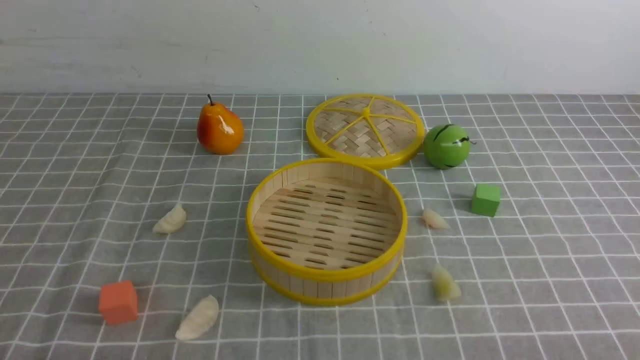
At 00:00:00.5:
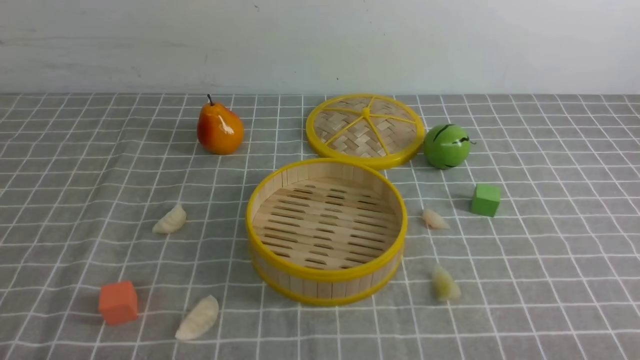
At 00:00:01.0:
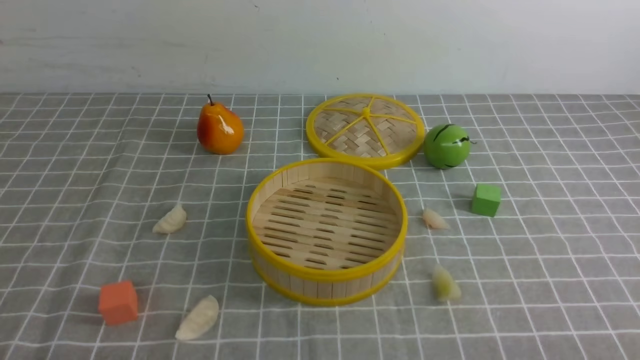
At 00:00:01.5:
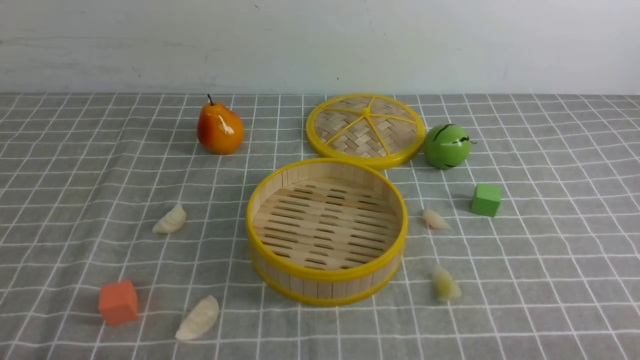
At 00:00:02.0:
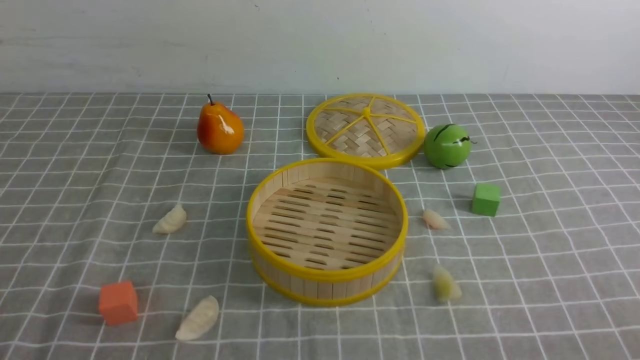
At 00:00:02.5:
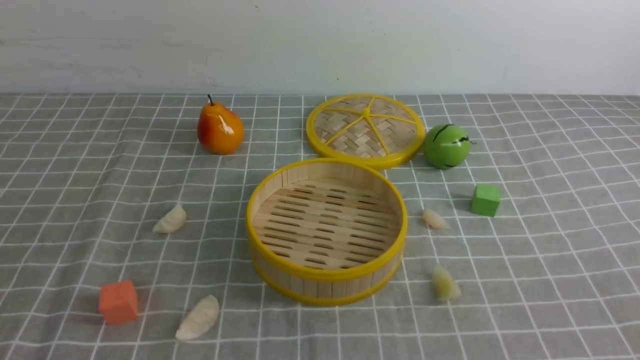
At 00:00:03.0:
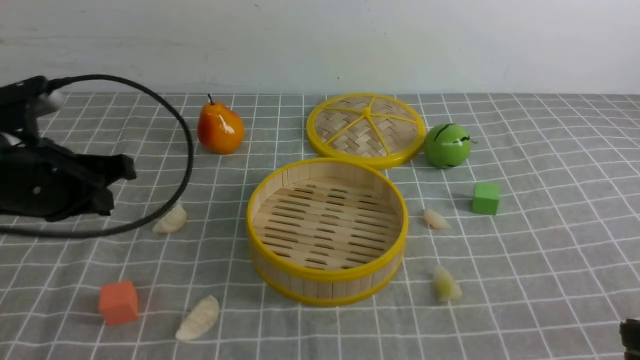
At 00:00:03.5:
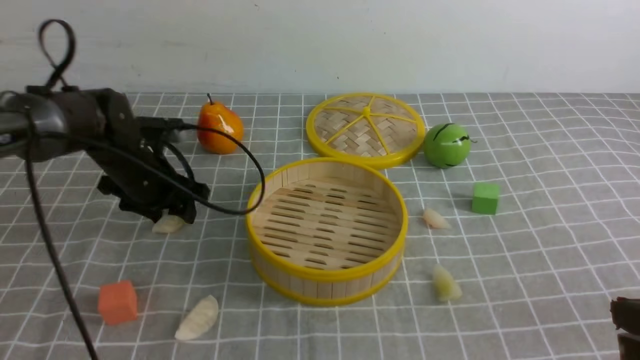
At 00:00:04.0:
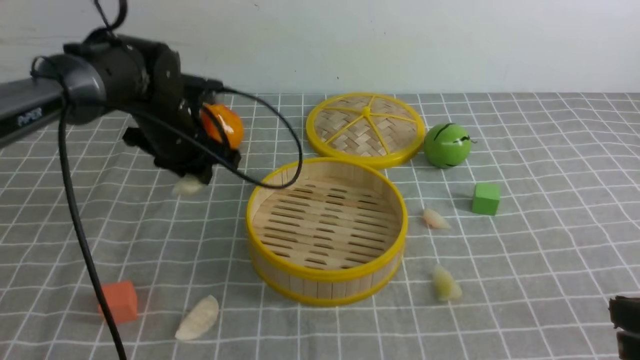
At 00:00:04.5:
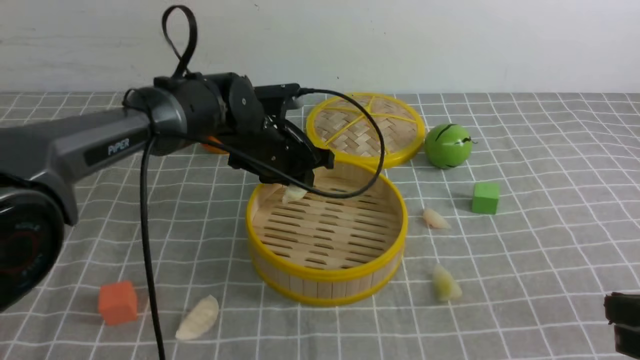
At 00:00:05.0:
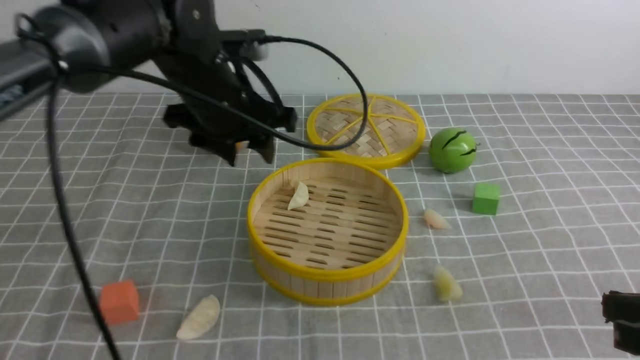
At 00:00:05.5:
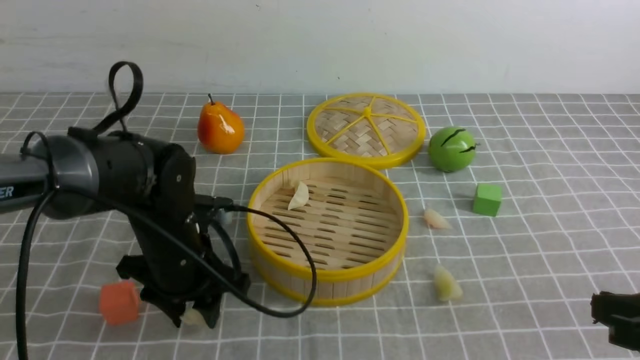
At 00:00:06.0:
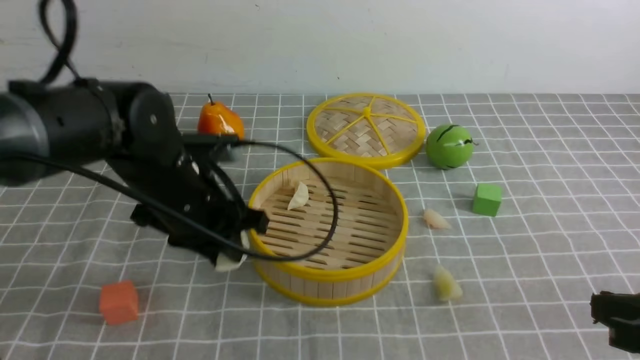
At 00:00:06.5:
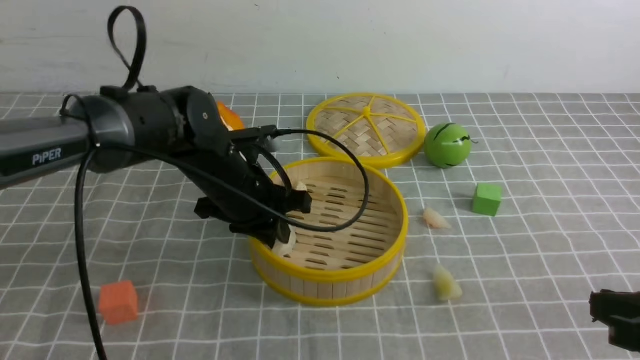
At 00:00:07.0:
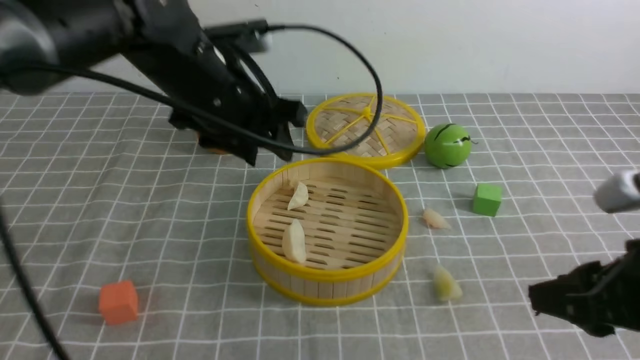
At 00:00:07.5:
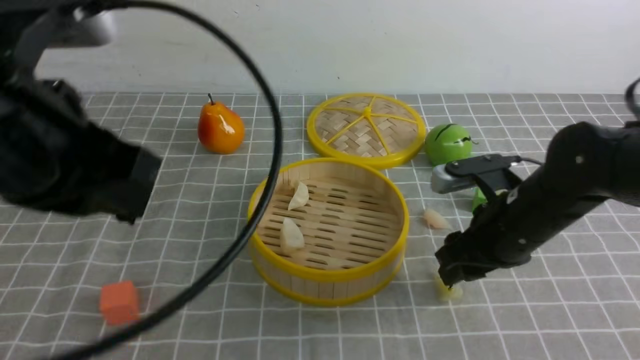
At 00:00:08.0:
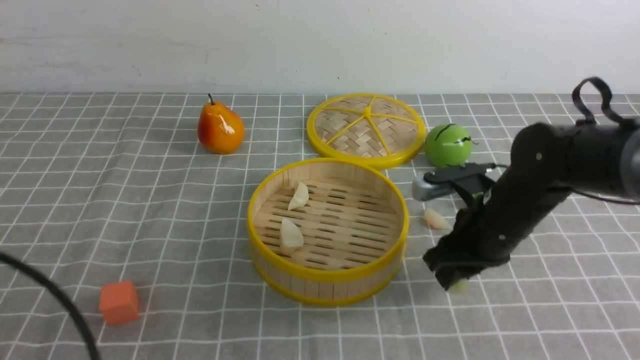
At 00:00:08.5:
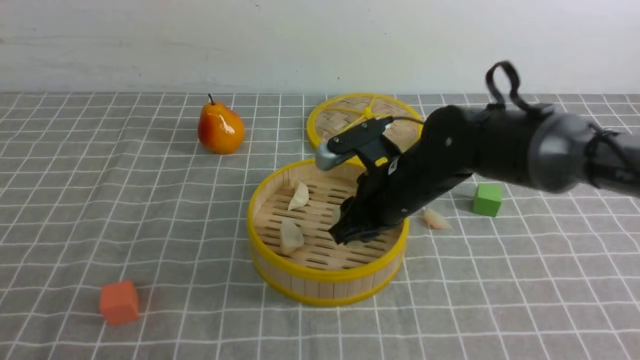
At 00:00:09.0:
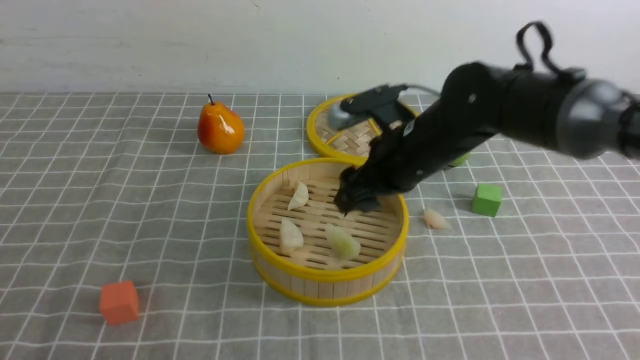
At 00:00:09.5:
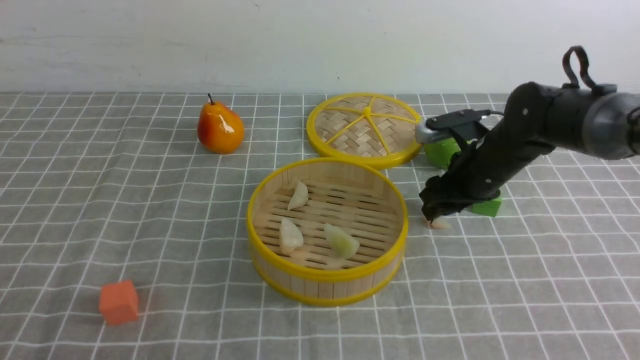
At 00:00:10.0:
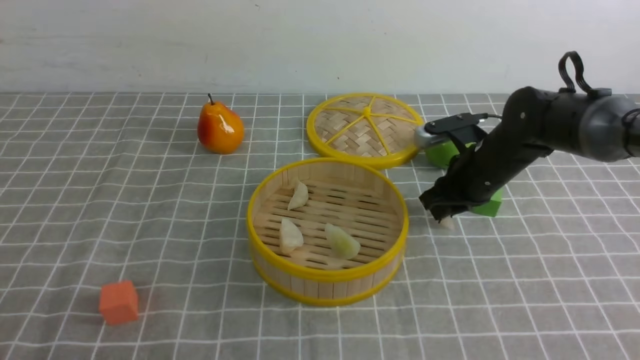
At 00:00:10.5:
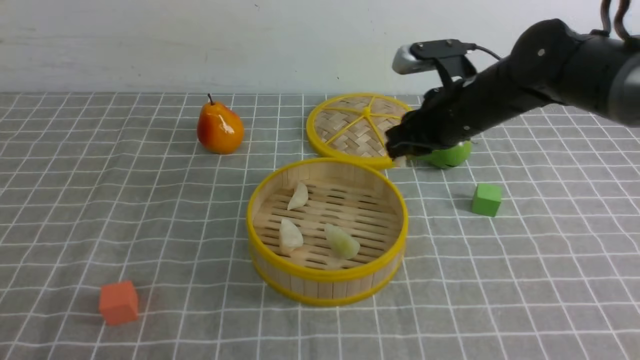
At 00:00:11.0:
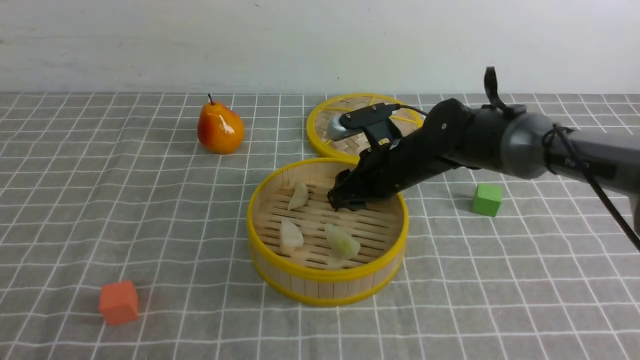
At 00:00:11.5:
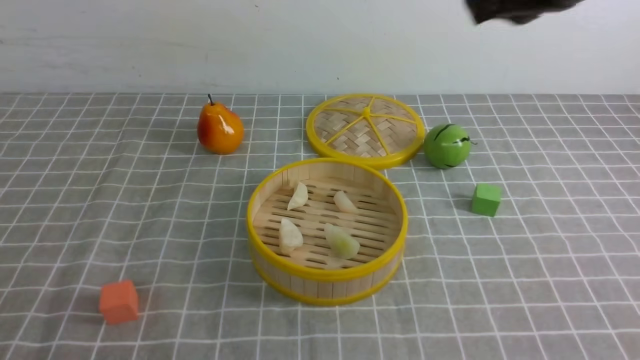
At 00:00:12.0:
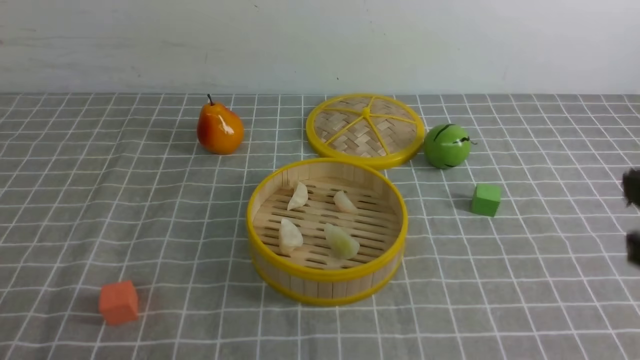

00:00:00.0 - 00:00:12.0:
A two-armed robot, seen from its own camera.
Task of the whole recording: put the dumplings into the steamer on the table with the grey tablecloth.
Step, 00:00:00.0 - 00:00:03.5: use the left arm to grab a dumpling.
Step, 00:00:04.0 - 00:00:04.5: use the left arm to put the dumpling into the steamer.
Step, 00:00:05.0 - 00:00:05.5: use the left arm to grab a dumpling.
Step, 00:00:06.0 - 00:00:06.5: use the left arm to put the dumpling into the steamer.
Step, 00:00:07.0 - 00:00:08.0: use the right arm to grab a dumpling.
Step, 00:00:09.5 - 00:00:10.0: use the right arm to grab a dumpling.
Step, 00:00:10.5 - 00:00:11.0: use the right arm to put the dumpling into the steamer.
00:00:00.0 - 00:00:02.0: The right gripper shifts some 5 cm upward.
00:00:02.0 - 00:00:04.0: The right gripper is displaced forward by about 10 cm; the left gripper shifts some 40 cm forward, and closes, then reopens.
00:00:04.0 - 00:00:06.0: The left gripper goes roughly 10 cm backward, and opens, then closes once more.
00:00:06.0 - 00:00:08.0: The right gripper moves forward and to the left, about 25 cm, and opens its fingers, while the left gripper travels backward and to the left by approximately 25 cm, and closes.
00:00:08.0 - 00:00:10.0: The left gripper shifts by approximately 5 cm, while the right gripper moves forward, some 10 cm, reaches some 10 cm to the left, then returns, and opens, then closes once more.
00:00:10.0 - 00:00:12.0: The right gripper travels backward and upward by approximately 30 cm, and opens and closes again.

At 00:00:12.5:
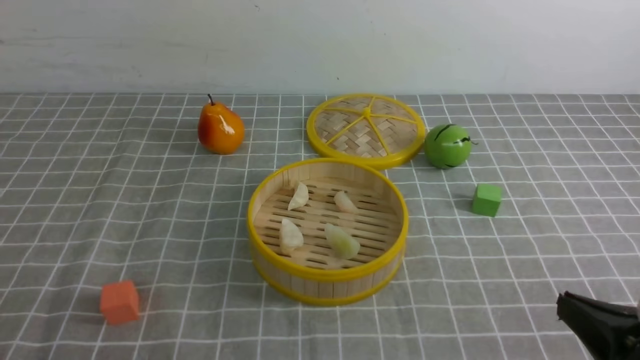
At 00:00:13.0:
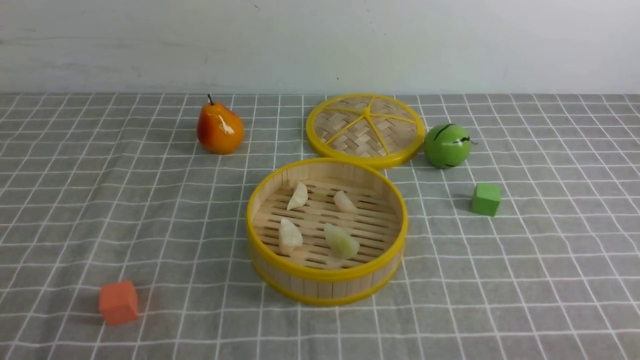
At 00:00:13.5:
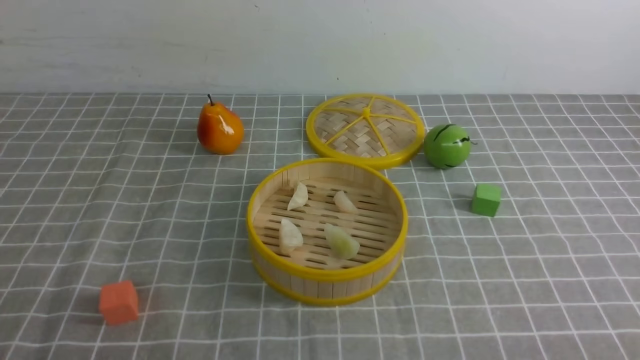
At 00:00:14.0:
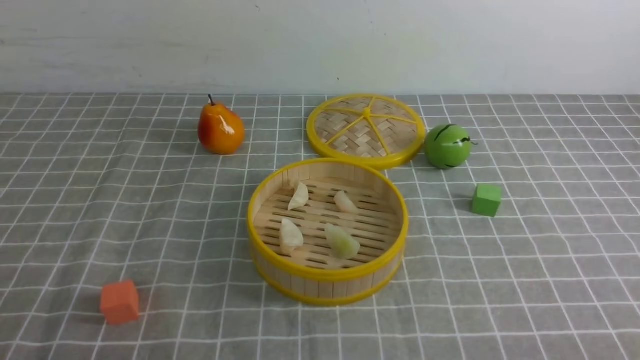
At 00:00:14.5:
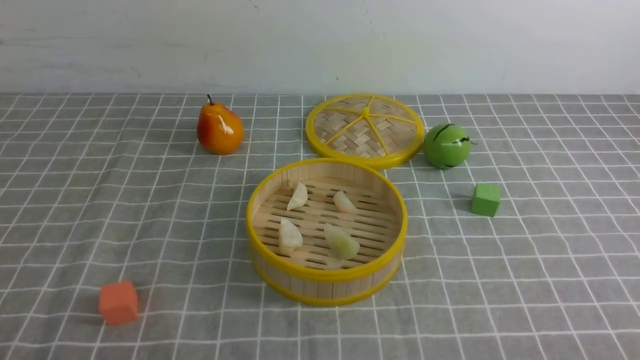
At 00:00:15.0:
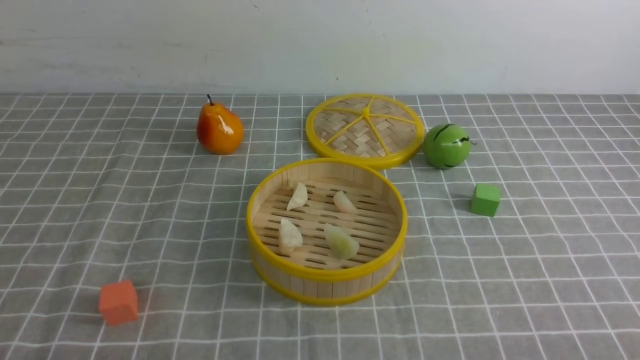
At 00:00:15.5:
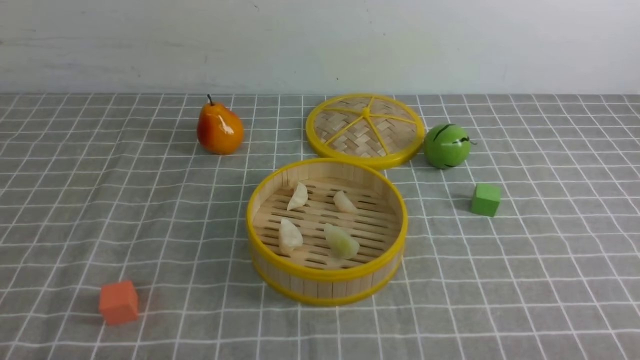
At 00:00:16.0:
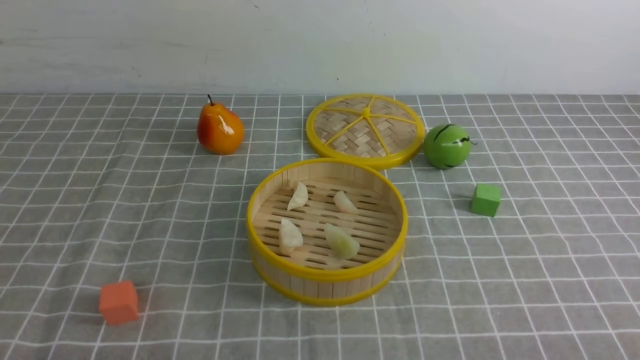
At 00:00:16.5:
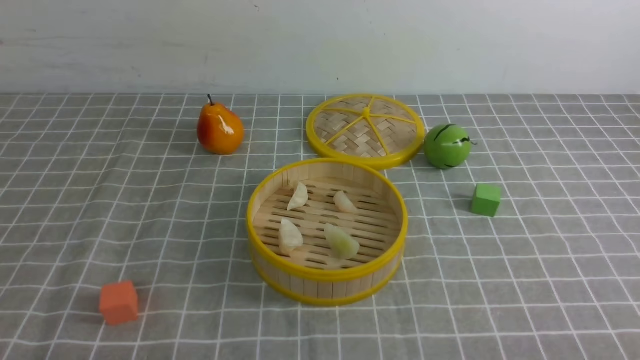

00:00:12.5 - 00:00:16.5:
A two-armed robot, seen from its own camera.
Task of the whole recording: put the dumplings into the steamer on the table with the grey tablecloth.
00:00:12.5 - 00:00:14.5: The right gripper travels backward and downward by about 10 cm.
